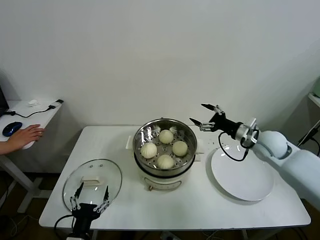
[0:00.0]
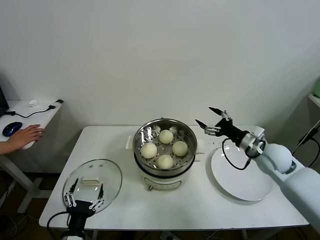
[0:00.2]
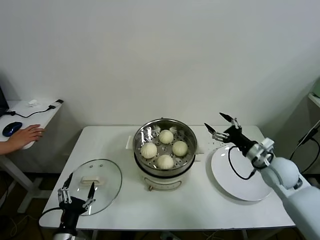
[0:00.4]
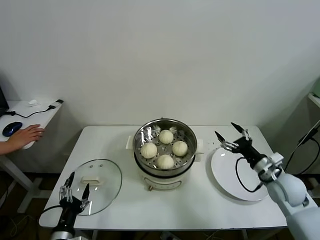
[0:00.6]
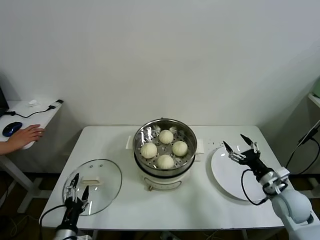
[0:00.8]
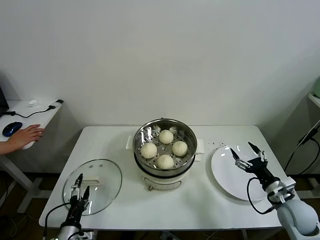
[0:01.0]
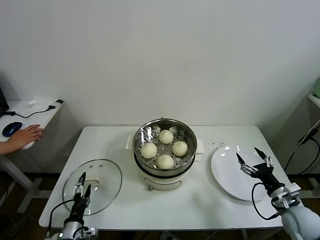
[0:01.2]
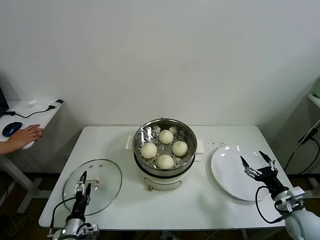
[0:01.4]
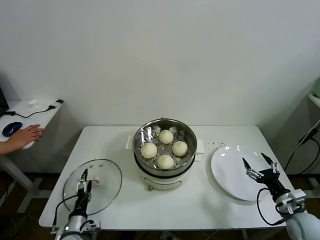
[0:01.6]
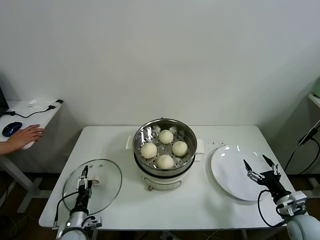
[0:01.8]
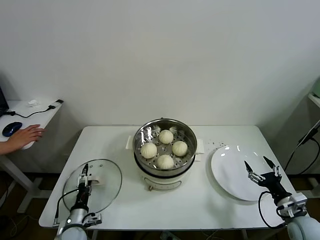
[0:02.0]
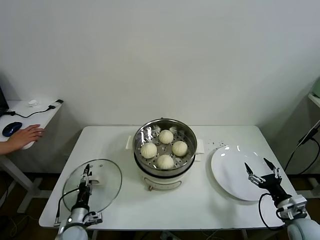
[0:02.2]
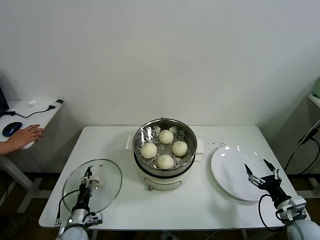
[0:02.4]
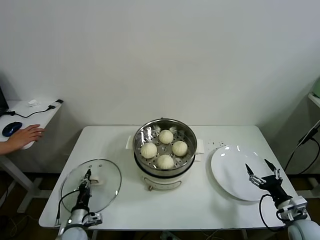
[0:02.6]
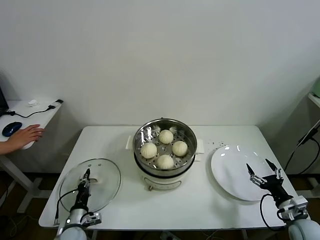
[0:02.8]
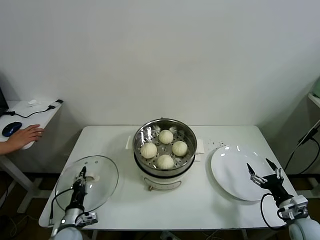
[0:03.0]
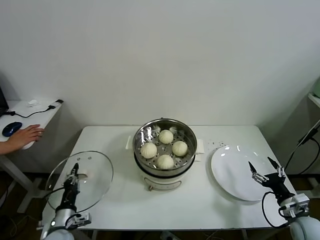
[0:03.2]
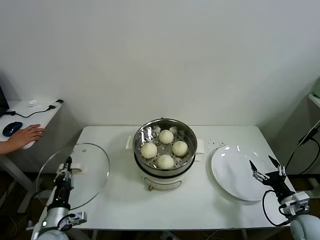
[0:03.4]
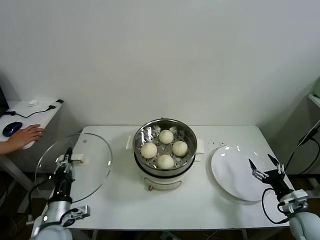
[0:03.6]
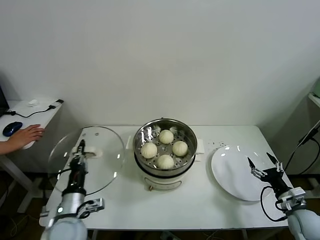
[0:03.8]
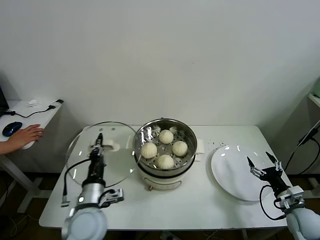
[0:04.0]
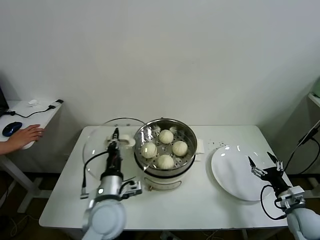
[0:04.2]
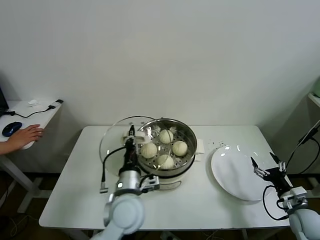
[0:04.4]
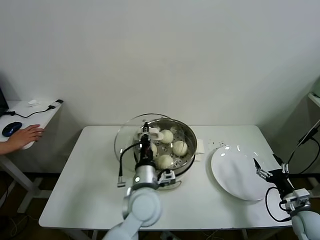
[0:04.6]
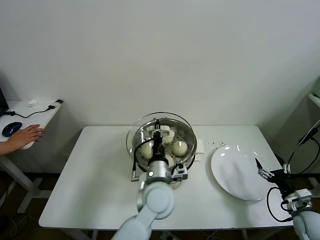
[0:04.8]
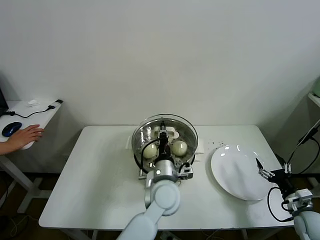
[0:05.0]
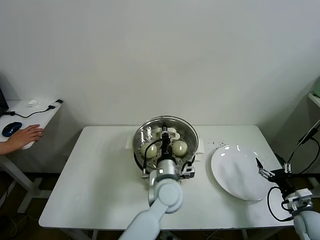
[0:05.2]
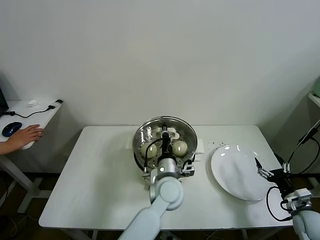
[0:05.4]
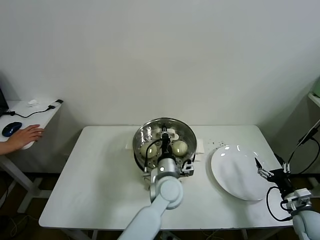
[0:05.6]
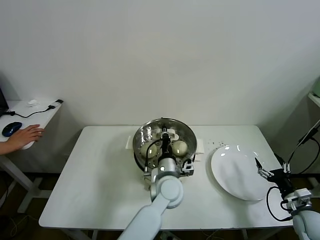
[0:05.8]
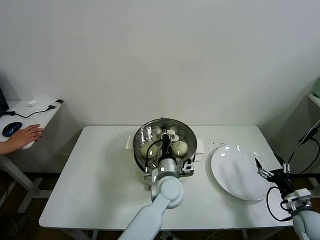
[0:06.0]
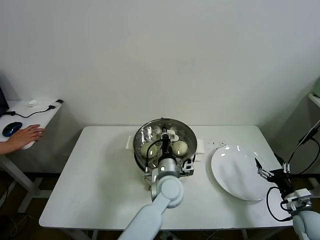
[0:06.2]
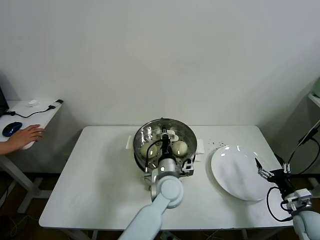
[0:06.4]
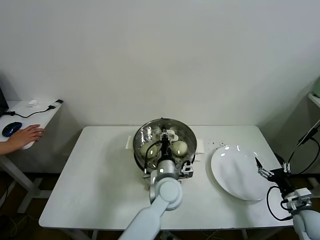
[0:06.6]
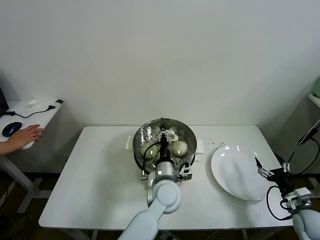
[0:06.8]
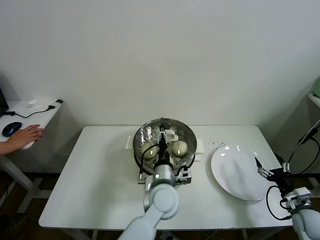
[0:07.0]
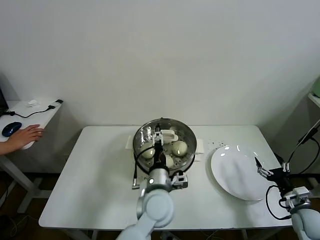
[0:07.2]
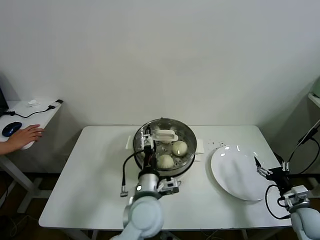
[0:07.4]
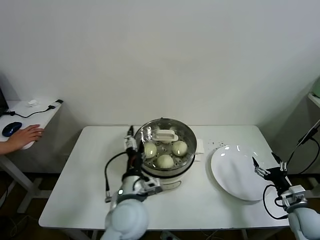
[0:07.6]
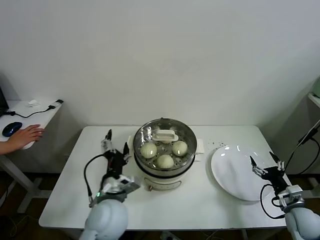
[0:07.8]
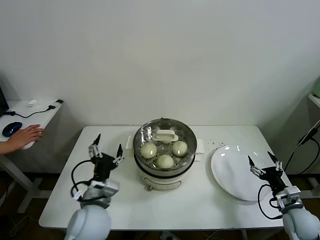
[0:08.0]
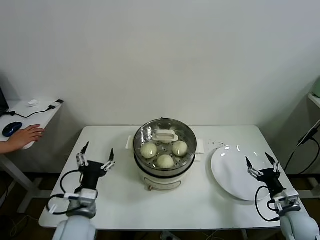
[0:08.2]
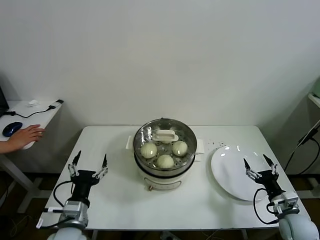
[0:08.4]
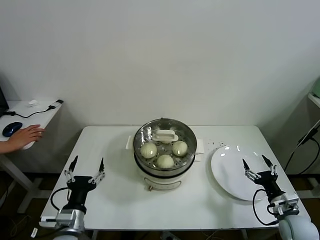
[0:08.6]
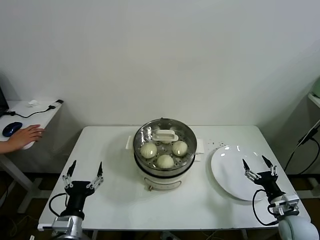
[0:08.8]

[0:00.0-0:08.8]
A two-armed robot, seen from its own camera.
Task of the whole recording: take steamed baozi put them in steamer.
Step, 0.0 to 2.8 s: Grasp the pot lid with left gripper.
Step, 3.0 to 7.2 s: Place the pot lid on the steamer with left gripper.
0.0 to 1.4 s: The right gripper is displaced backward, downward and to the right by approximately 25 cm, while the left gripper heads downward, forward and to the left, covering approximately 15 cm.
1.4 to 3.0 s: The left gripper closes.
3.0 to 4.4 s: The left gripper moves to the right and upward, roughly 30 cm.
4.4 to 5.8 s: The left gripper heads to the right and forward, covering some 15 cm.
5.8 to 7.4 s: The left gripper heads backward and to the left, covering some 10 cm, and opens.
7.4 to 8.8 s: The right gripper shifts roughly 5 cm to the left; the left gripper goes roughly 25 cm to the left and backward.

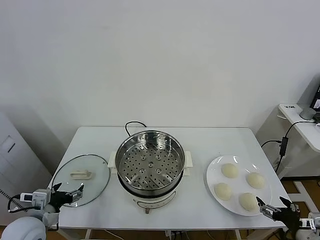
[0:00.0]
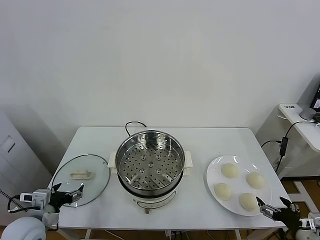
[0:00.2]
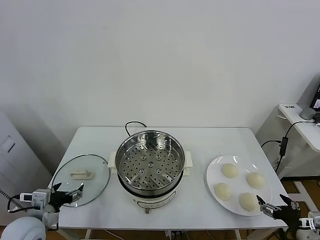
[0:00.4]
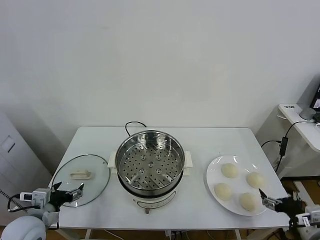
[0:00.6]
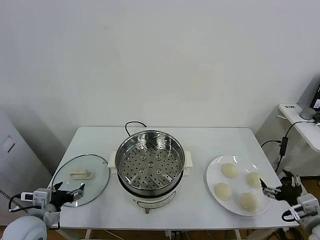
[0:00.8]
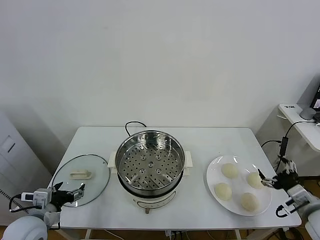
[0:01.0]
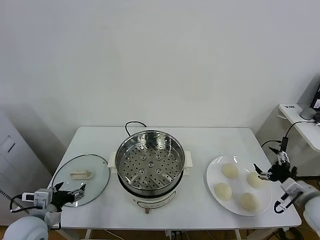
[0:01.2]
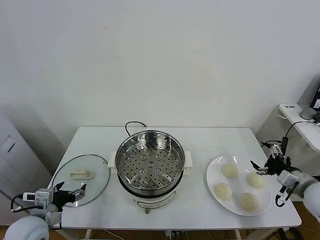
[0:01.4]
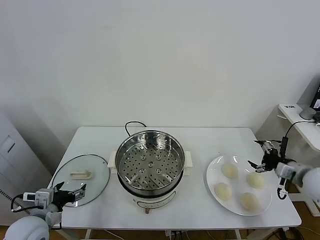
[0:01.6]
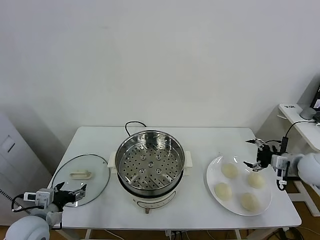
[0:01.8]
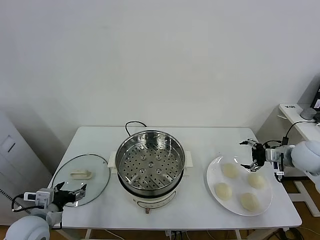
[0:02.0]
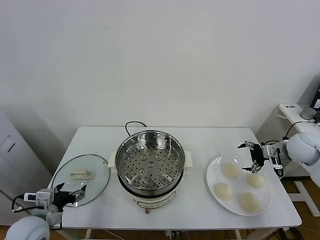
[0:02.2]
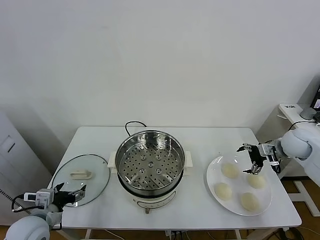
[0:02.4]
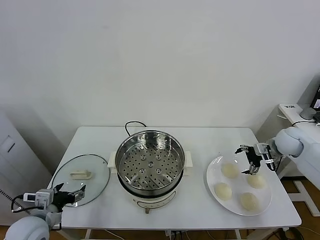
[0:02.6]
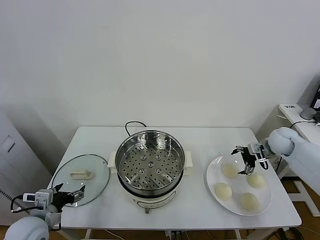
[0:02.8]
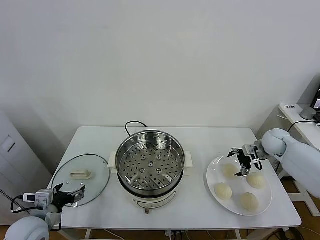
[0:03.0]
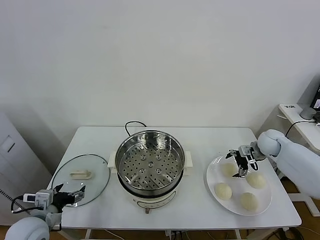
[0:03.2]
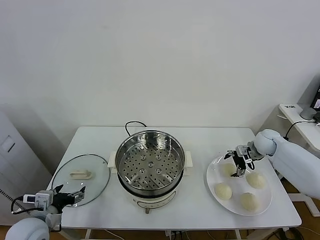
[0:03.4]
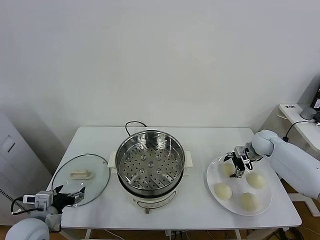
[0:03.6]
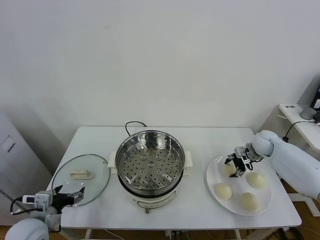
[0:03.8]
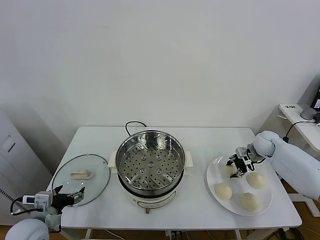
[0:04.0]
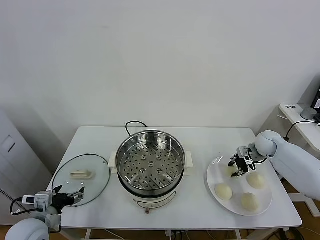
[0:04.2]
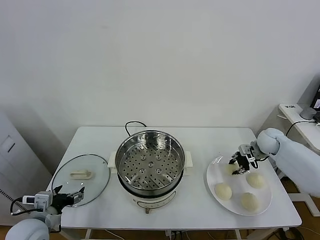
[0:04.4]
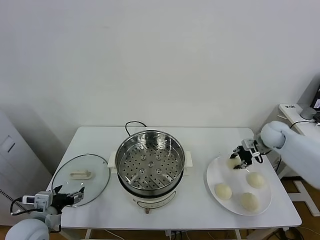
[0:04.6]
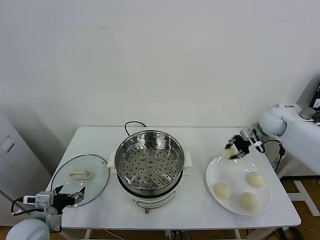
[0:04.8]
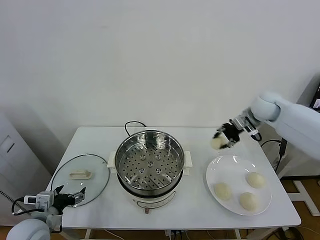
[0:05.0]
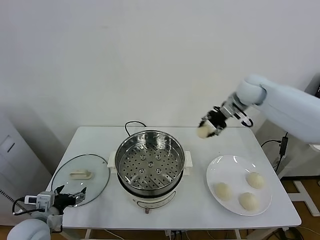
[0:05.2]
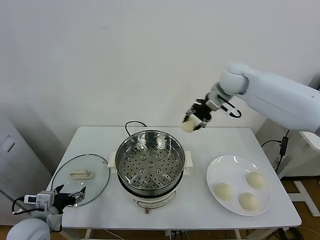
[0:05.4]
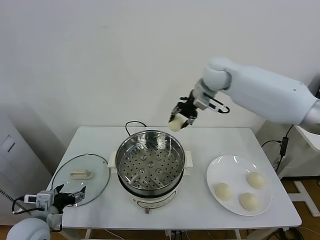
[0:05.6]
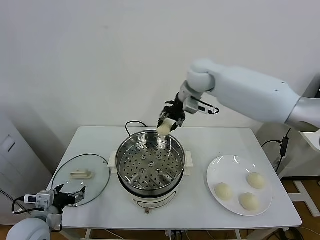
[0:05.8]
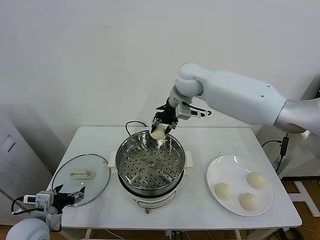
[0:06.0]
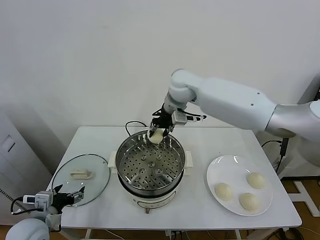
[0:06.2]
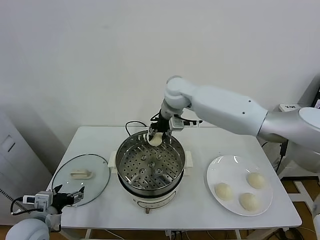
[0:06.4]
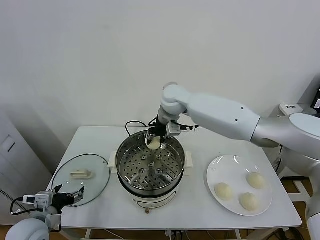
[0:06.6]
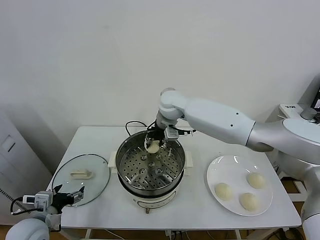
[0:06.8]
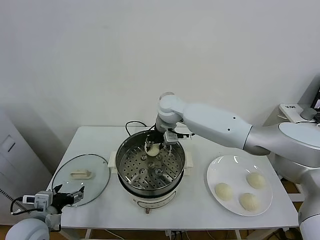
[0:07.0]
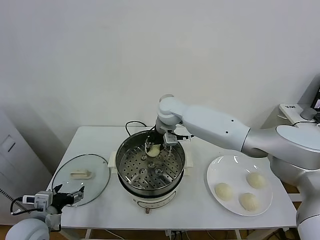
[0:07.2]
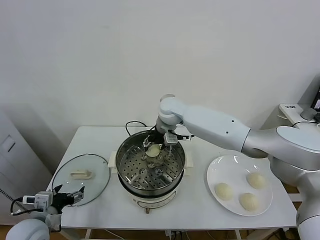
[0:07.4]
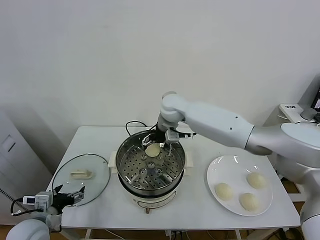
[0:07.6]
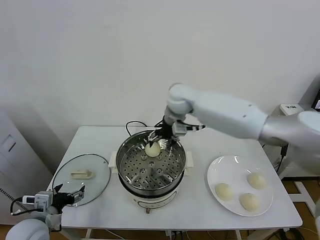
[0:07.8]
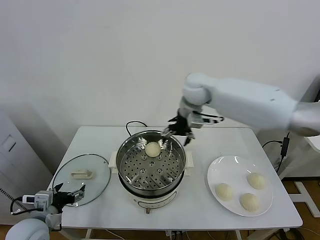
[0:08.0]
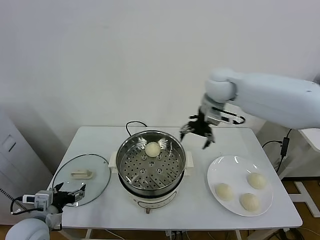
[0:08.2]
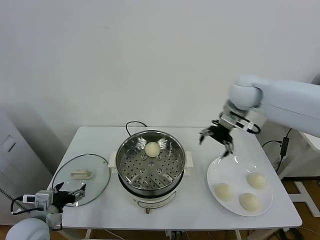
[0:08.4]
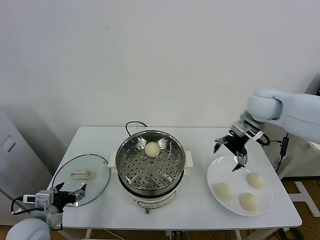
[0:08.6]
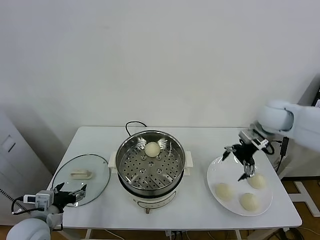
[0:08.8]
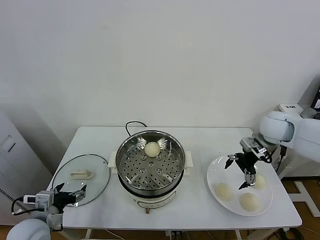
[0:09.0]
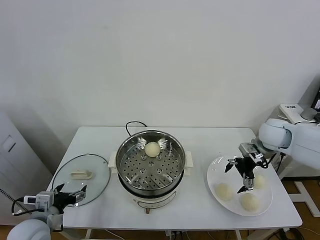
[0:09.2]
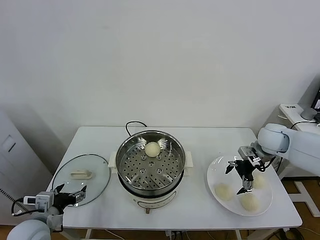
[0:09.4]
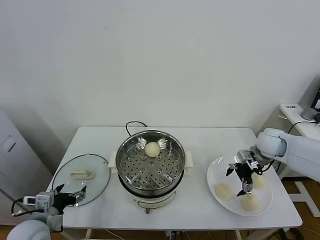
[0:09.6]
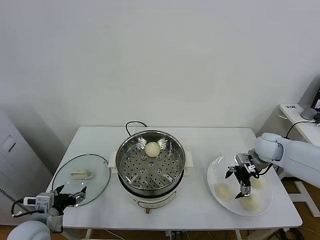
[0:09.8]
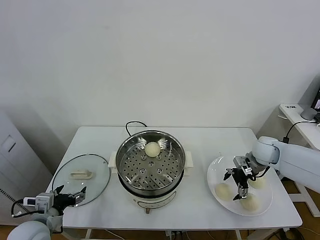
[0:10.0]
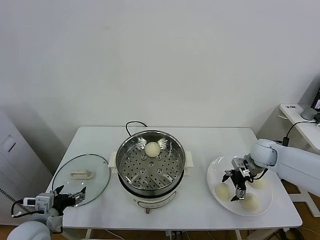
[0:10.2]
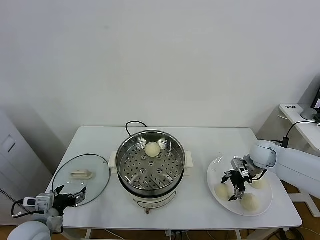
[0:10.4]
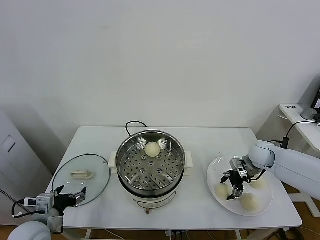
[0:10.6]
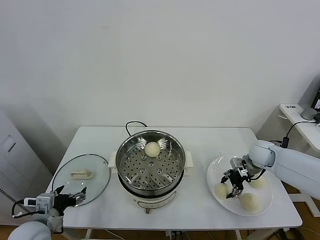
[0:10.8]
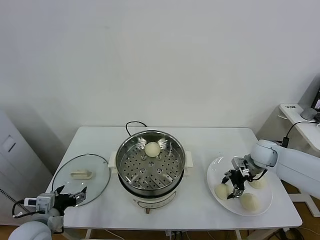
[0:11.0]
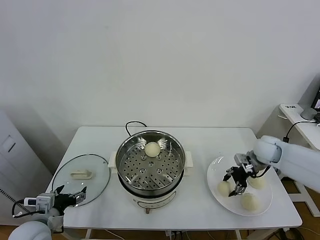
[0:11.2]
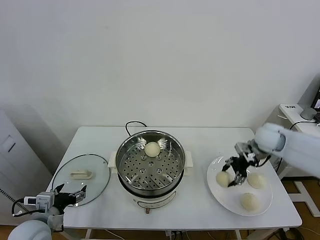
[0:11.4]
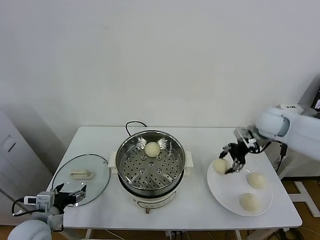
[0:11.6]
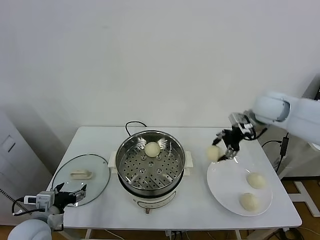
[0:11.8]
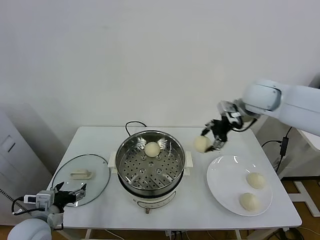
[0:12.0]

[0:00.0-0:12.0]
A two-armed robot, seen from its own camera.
Task of the whole recording: take steamed baozi put them in steamer.
Step, 0.0 to 4.0 s: Grasp the baozi in the plate with right gripper.
Step, 4.2 to 7.6 s: Place the baozi on the steamer with right gripper.
Step, 8.0 to 10.8 s: Grasp the baozi in the plate with right gripper.
1.6 to 3.0 s: The right gripper is displaced forward by roughly 15 cm.
3.0 to 4.4 s: The right gripper closes its fingers.
4.4 to 6.0 s: The right gripper goes roughly 40 cm to the left and upward.
6.0 to 7.6 s: The right gripper is displaced downward by roughly 10 cm, and opens.
7.6 to 9.0 s: The right gripper travels to the right by roughly 30 cm.
9.0 to 10.4 s: The right gripper shifts about 15 cm downward.
10.4 to 12.0 s: The right gripper goes some 30 cm upward and to the left.

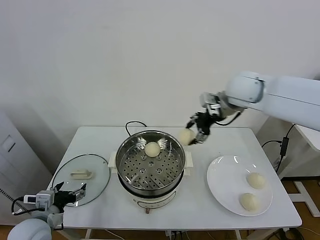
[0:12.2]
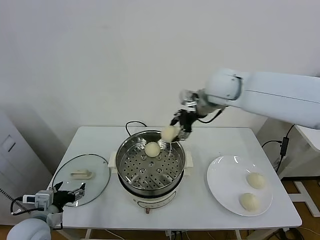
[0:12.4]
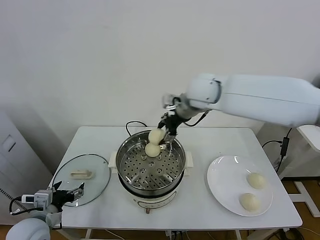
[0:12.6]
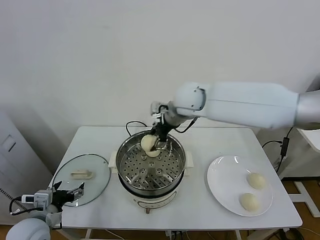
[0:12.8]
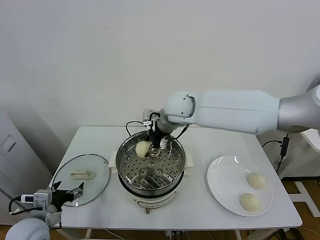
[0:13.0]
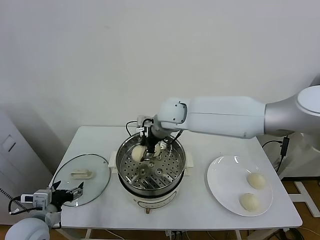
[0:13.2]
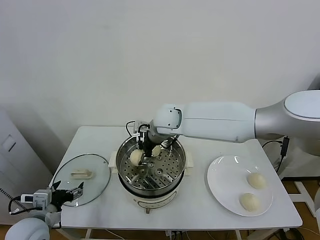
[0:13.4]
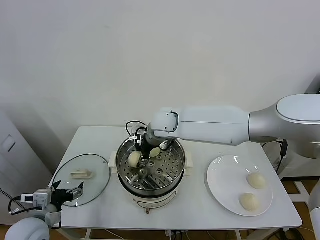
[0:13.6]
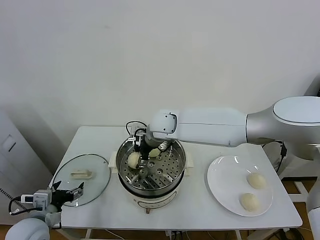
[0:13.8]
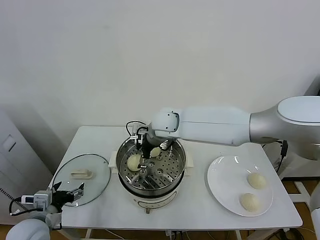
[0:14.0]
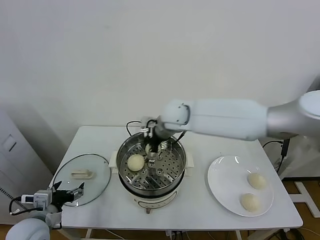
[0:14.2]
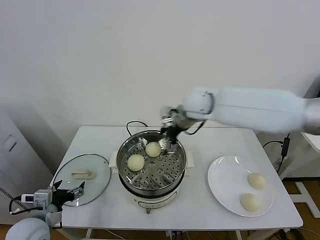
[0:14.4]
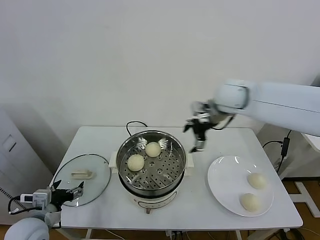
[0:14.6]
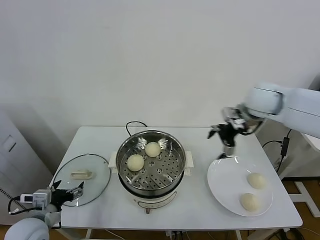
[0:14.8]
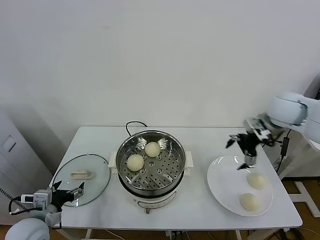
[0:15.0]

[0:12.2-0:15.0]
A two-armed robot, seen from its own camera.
Task of the whole recording: take steamed baozi put them in steamer.
Step, 12.2 to 14.0 s: Place the baozi on the steamer with right gripper.
12.2 to 13.6 s: The right gripper heads to the left and downward, covering about 25 cm.
13.6 to 15.0 s: The right gripper goes approximately 35 cm to the right, and opens up.
